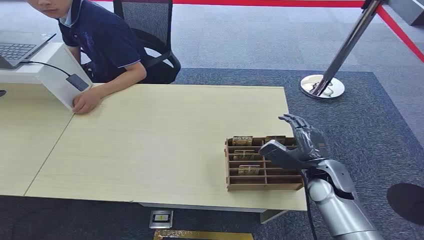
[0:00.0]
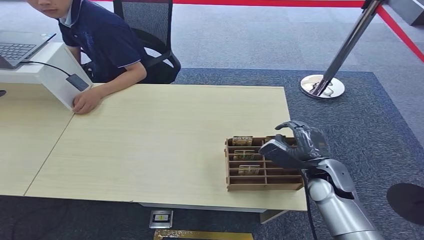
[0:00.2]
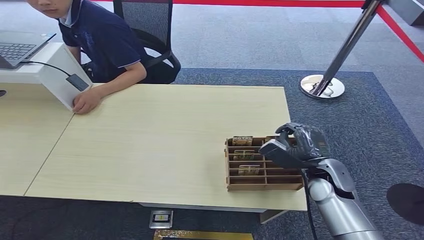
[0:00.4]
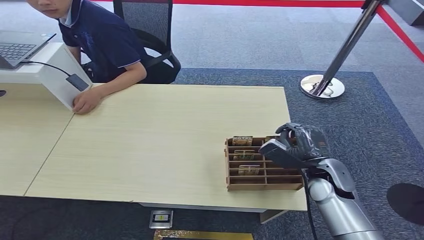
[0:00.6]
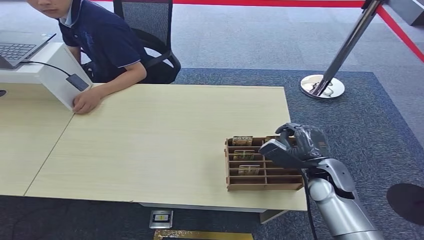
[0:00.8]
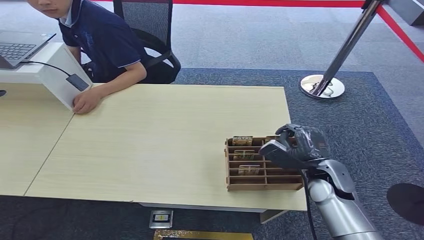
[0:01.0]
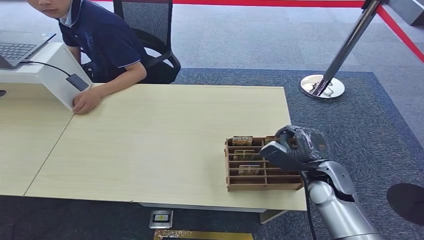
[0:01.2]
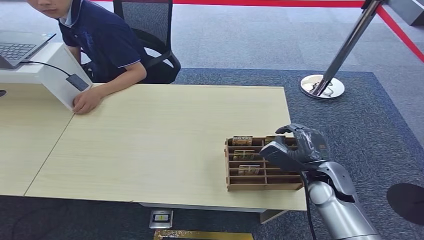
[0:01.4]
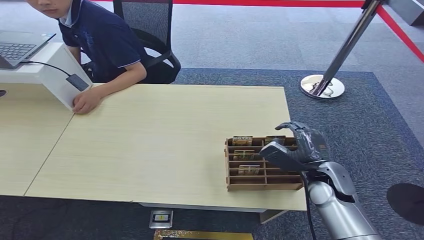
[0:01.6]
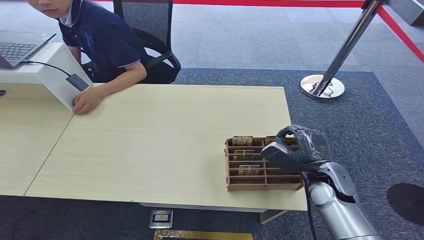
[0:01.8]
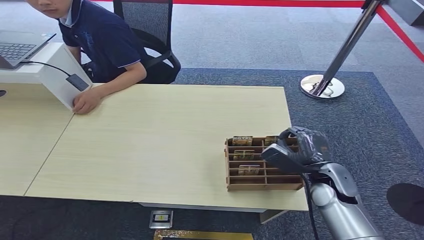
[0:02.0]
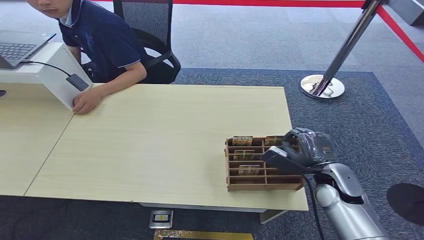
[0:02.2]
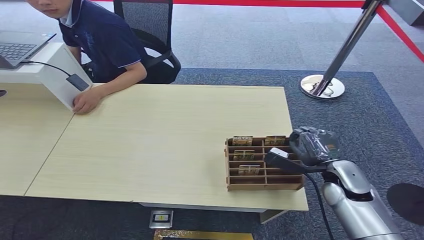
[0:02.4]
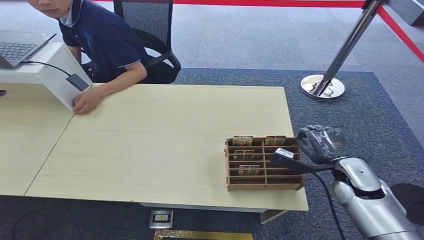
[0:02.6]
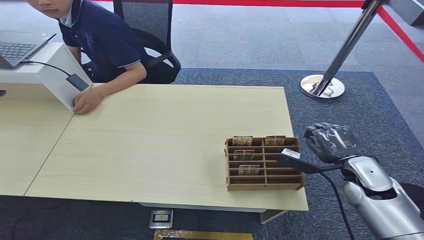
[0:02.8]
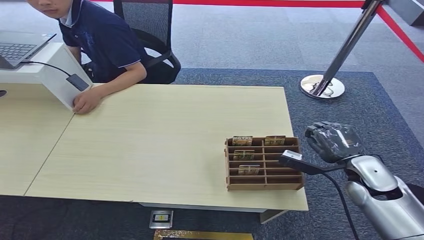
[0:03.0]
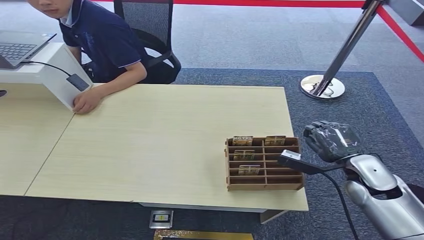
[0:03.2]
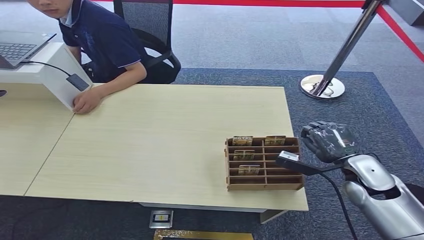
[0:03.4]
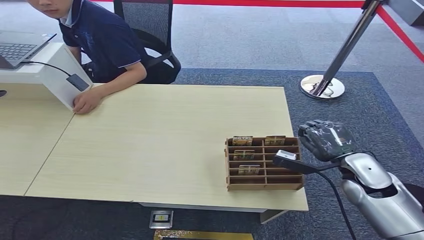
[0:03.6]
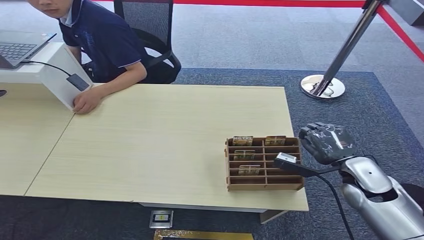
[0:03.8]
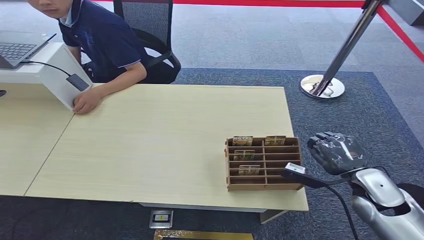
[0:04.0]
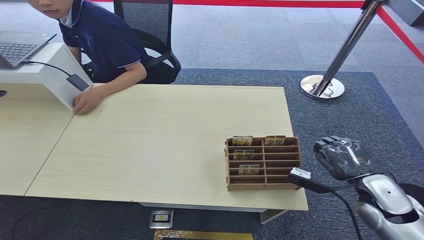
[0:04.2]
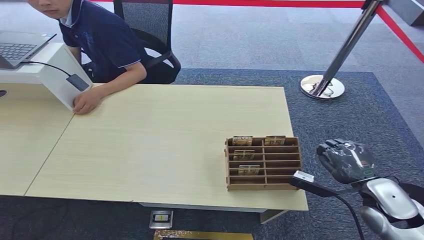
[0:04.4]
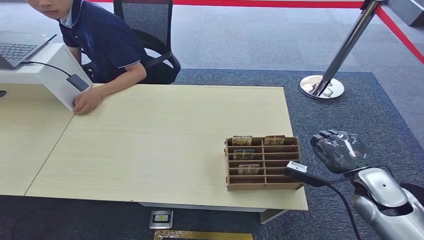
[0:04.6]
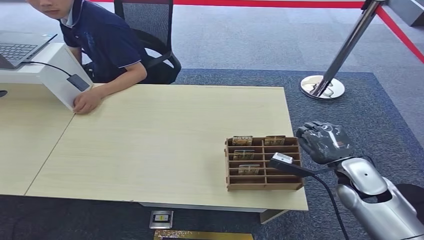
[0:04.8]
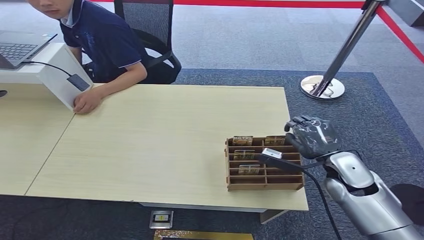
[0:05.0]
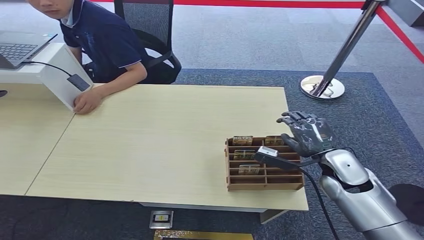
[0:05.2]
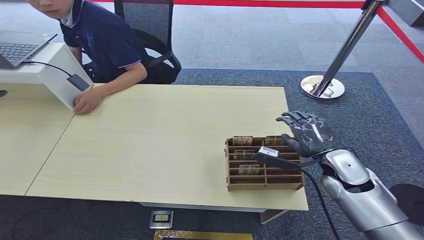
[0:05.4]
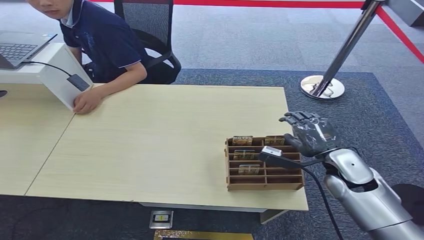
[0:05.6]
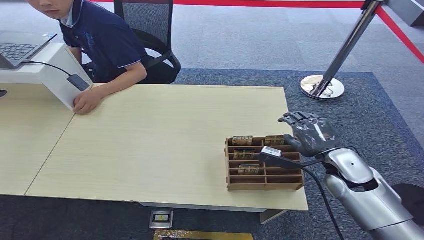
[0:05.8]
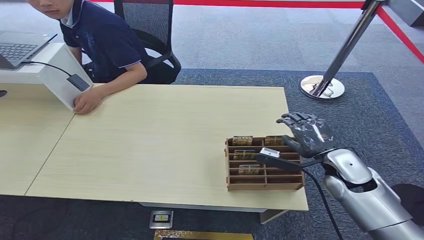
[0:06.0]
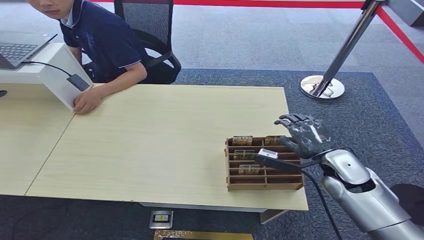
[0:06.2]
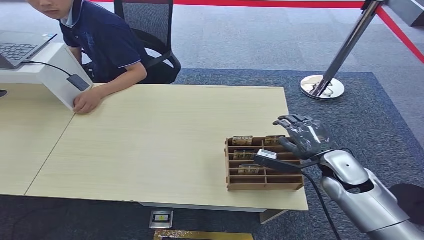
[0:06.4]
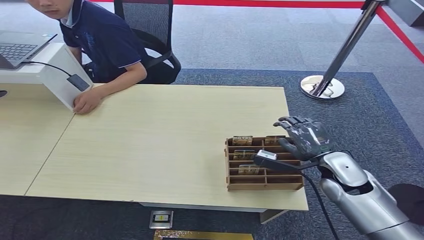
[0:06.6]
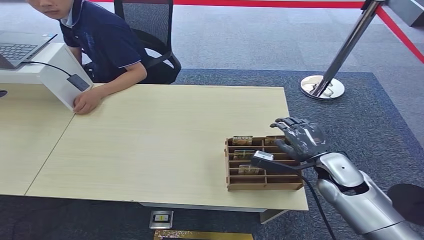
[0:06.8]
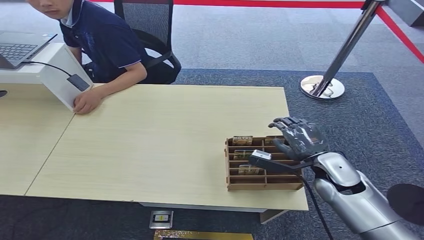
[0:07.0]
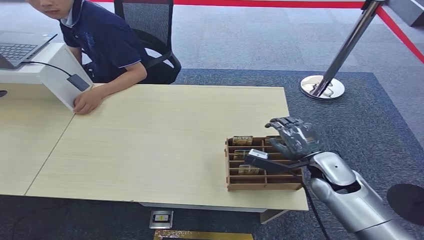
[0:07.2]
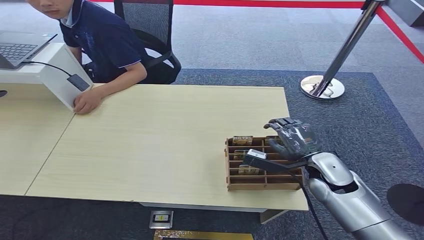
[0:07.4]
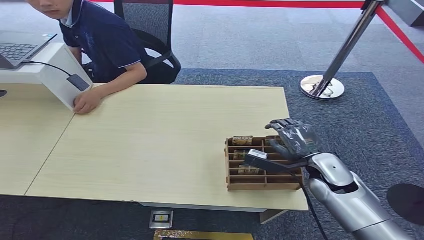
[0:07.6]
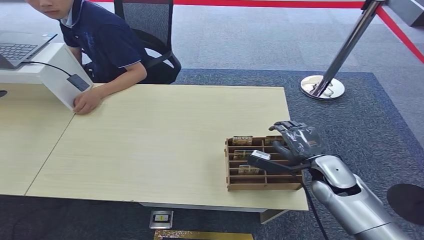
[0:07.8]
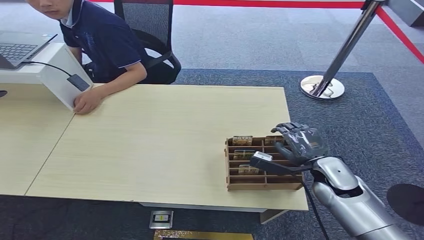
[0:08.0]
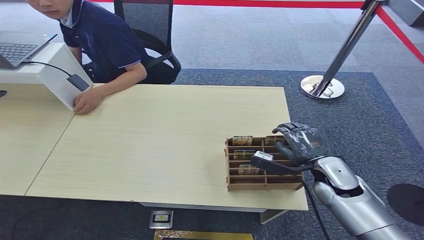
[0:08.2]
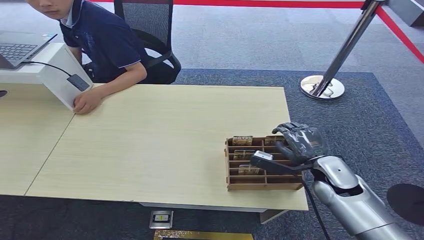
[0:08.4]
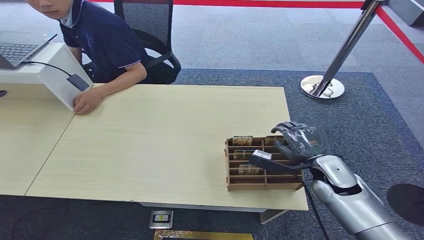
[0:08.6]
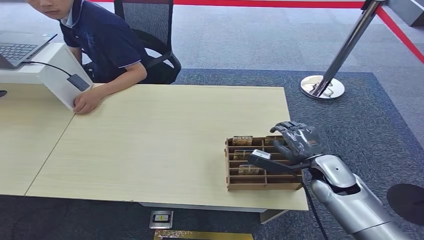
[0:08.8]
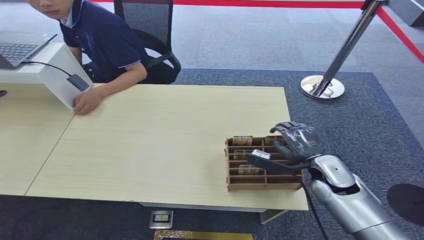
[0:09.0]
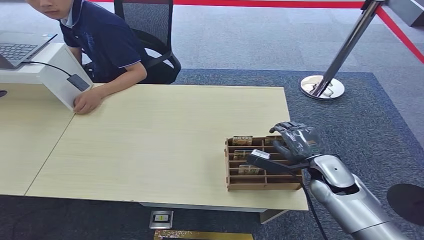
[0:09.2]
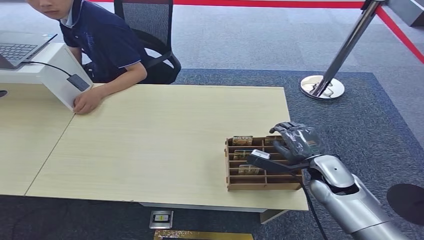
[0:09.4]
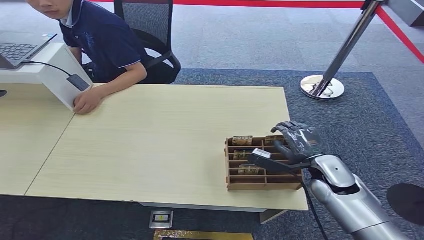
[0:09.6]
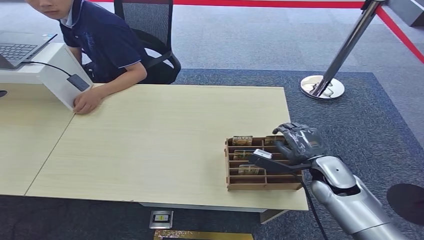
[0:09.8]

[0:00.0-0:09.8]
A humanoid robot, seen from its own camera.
0:01.4 to 0:02.8: The right hand goes approximately 10 cm to the right.
0:02.8 to 0:04.2: The right hand shifts roughly 5 cm backward.
0:04.2 to 0:05.6: The right hand moves forward and to the left, some 10 cm.
0:05.6 to 0:08.4: The hands move only a little.
0:08.4 to 0:09.8: Both hands stay about where they are.

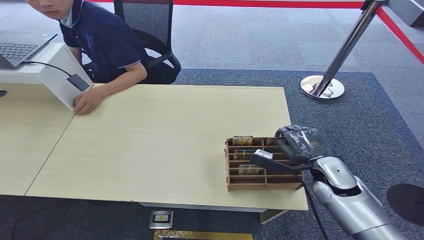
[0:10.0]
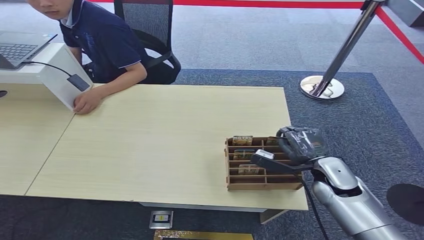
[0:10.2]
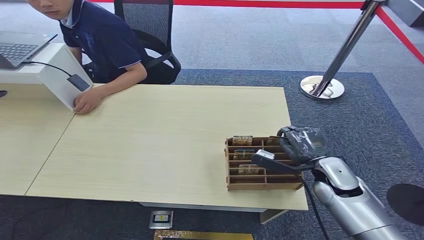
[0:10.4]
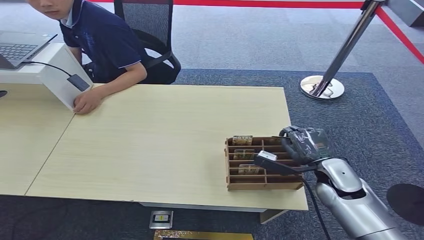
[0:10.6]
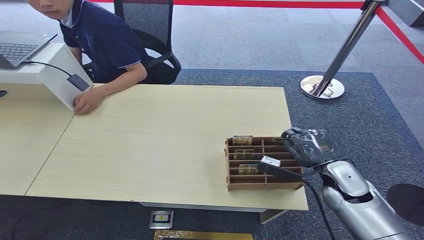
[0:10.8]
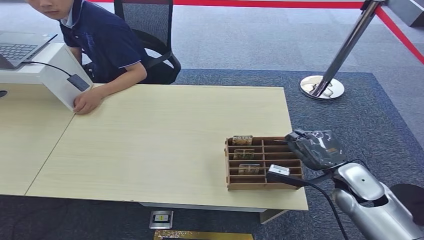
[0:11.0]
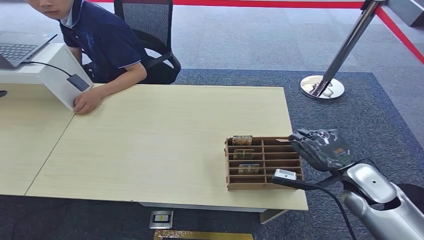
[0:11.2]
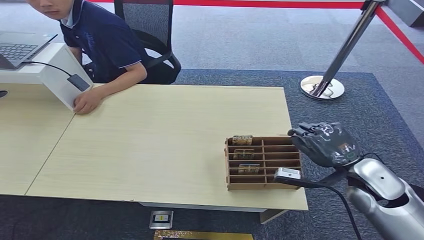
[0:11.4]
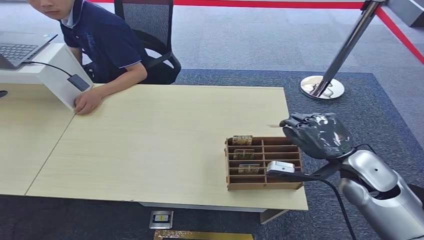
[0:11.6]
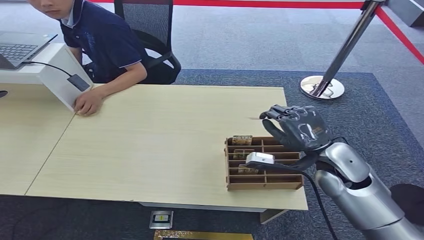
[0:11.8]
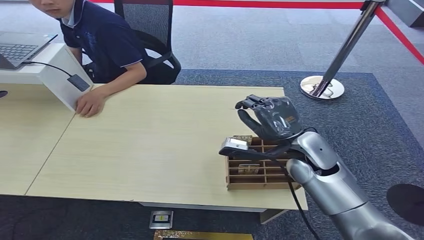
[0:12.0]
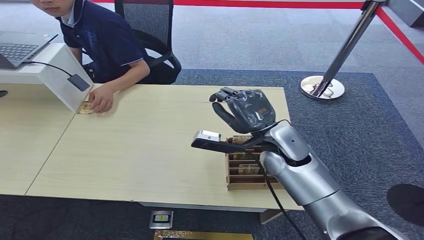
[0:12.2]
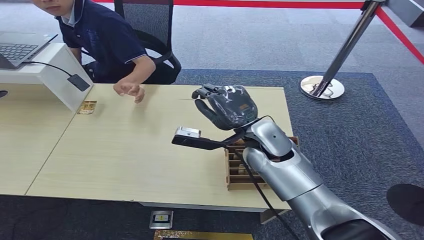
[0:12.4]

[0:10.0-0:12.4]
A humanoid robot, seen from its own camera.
Step, 0:11.0 to 0:12.4: Hand the room card to the target.
0:10.0 to 0:11.2: The right hand moves approximately 5 cm.
0:11.2 to 0:12.4: The right hand travels to the left by approximately 20 cm.
